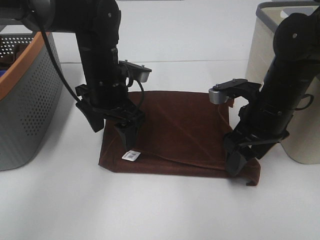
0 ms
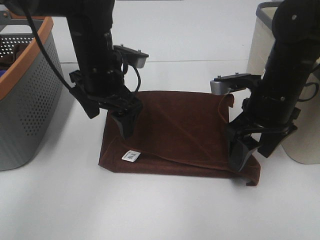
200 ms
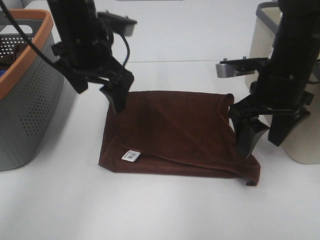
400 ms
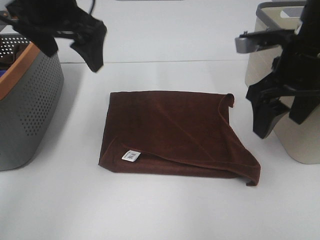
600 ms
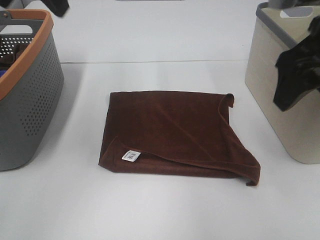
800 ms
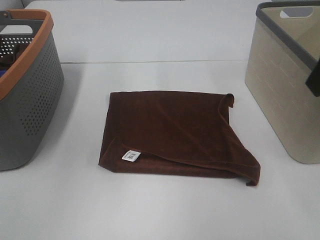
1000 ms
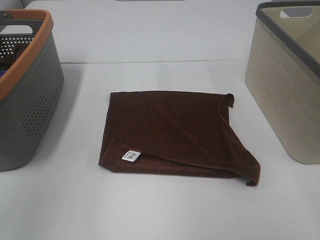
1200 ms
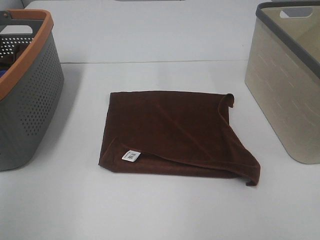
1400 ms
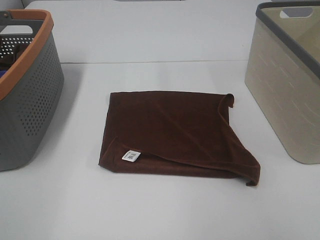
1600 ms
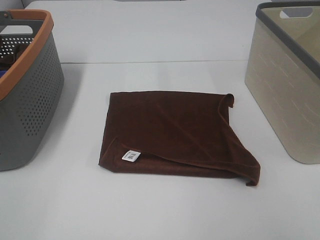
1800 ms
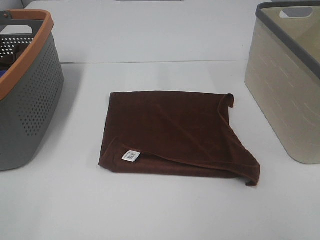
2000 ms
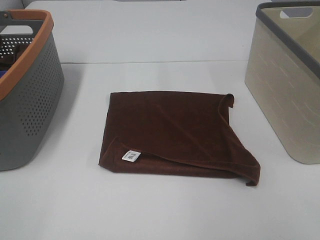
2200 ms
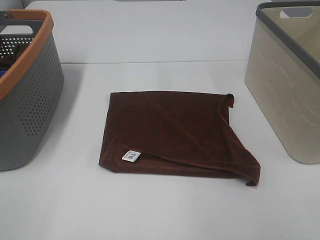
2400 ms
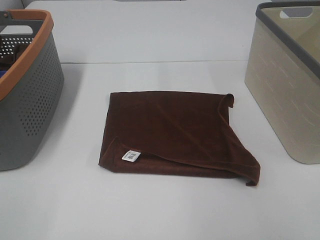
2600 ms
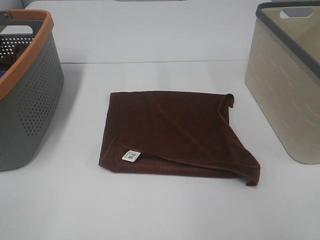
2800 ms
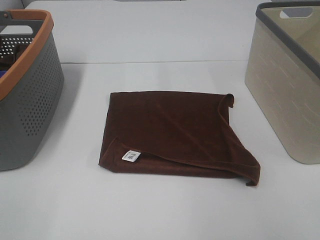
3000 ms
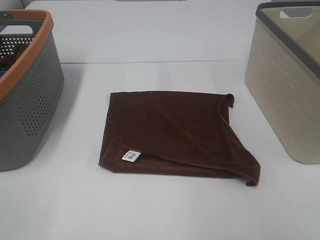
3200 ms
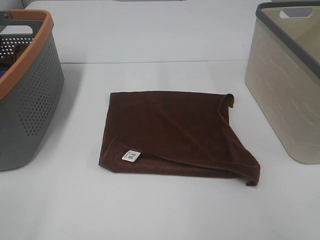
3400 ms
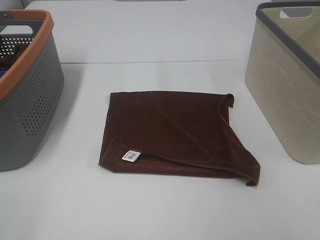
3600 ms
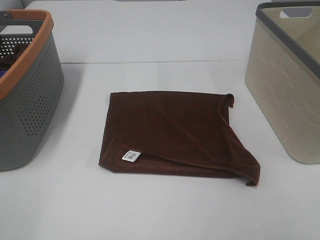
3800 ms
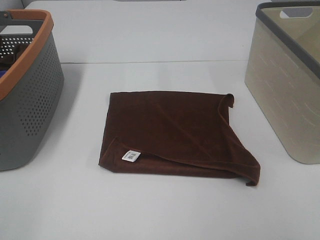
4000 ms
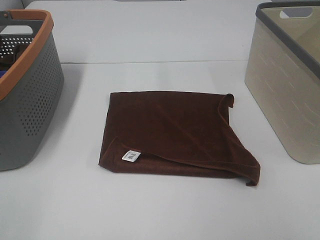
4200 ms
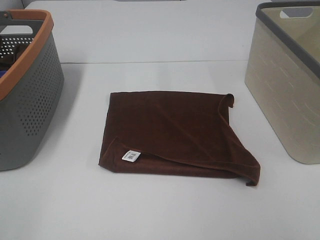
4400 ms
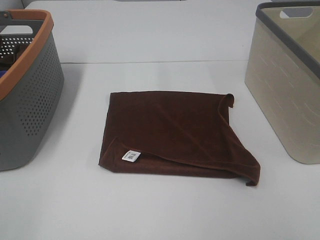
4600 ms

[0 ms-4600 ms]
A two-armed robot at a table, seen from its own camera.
Task of the whole recording: Remove the towel and place it.
0 ms to 1600 ms: The left gripper moves backward, to the left and upward, some 40 cm. Meanwhile the right gripper heads backward and upward, covering approximately 30 cm.

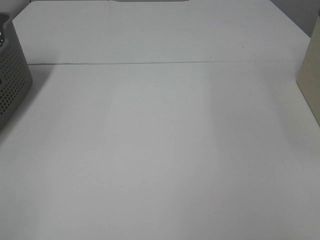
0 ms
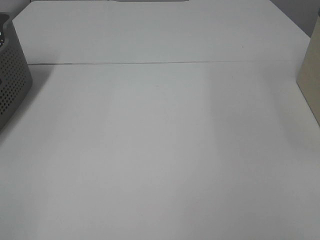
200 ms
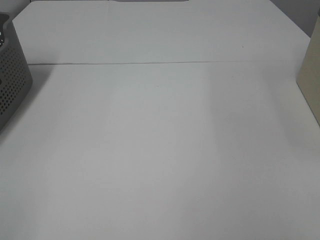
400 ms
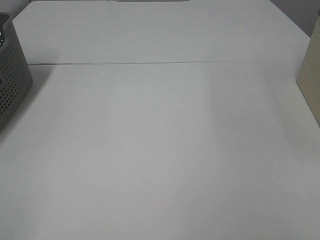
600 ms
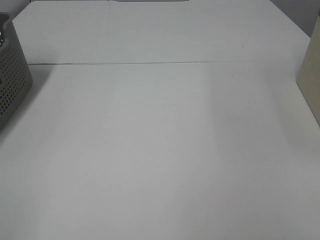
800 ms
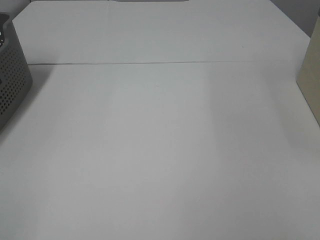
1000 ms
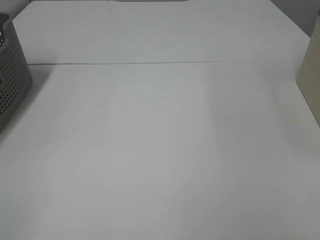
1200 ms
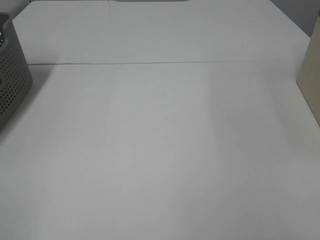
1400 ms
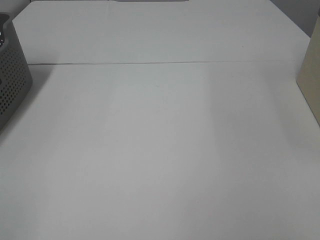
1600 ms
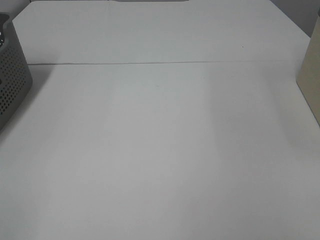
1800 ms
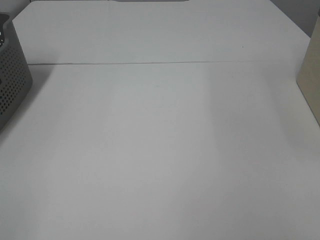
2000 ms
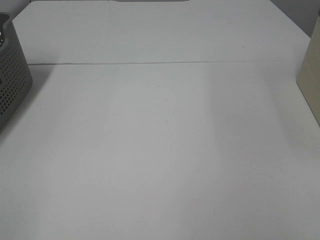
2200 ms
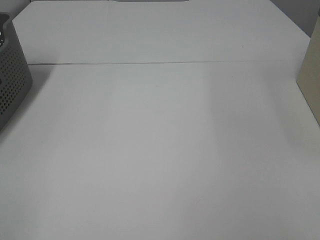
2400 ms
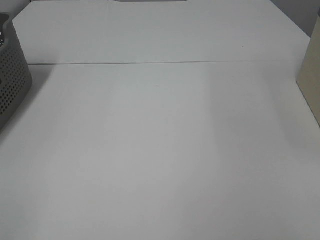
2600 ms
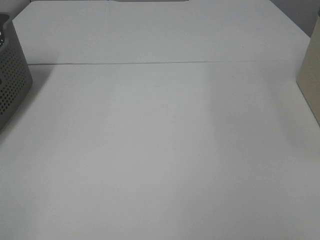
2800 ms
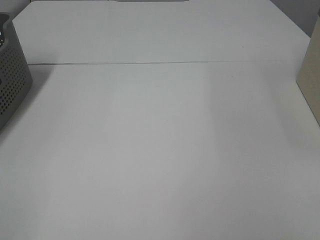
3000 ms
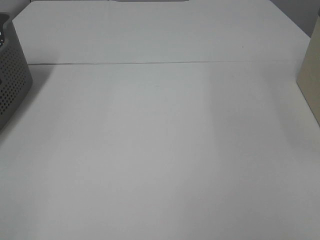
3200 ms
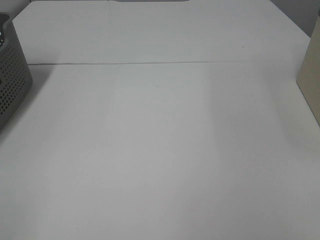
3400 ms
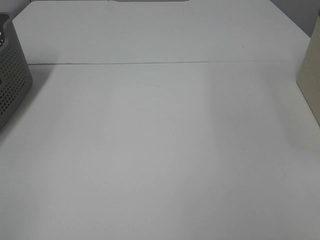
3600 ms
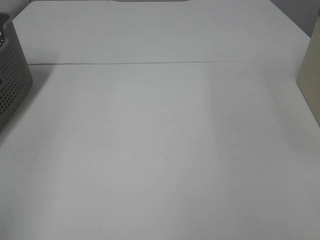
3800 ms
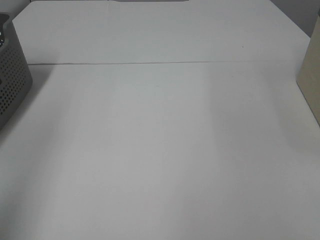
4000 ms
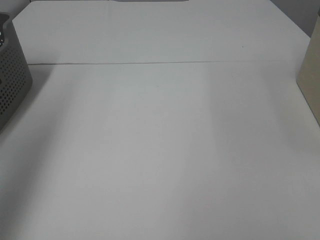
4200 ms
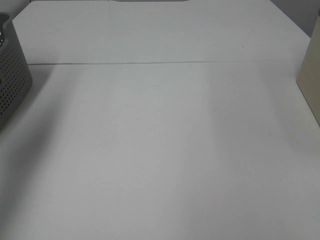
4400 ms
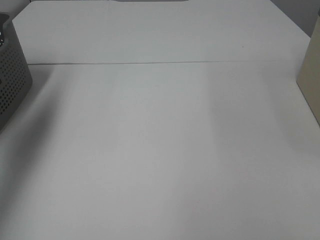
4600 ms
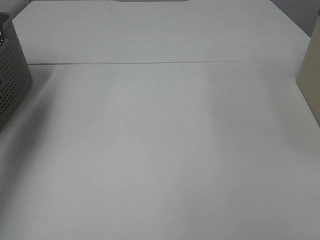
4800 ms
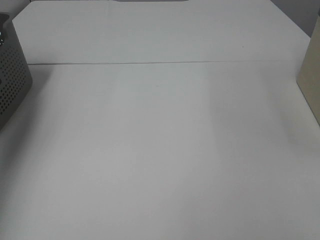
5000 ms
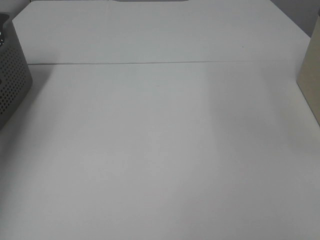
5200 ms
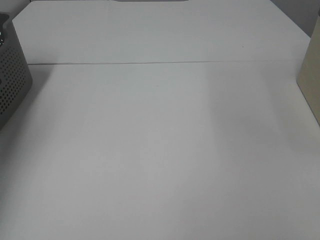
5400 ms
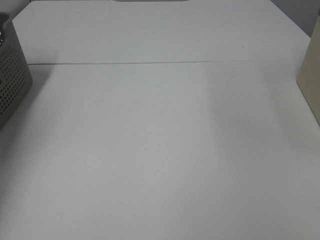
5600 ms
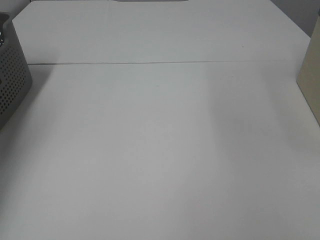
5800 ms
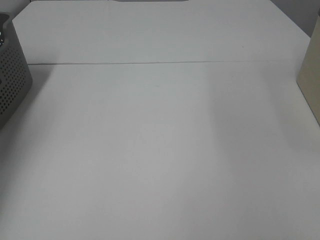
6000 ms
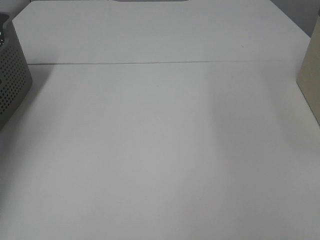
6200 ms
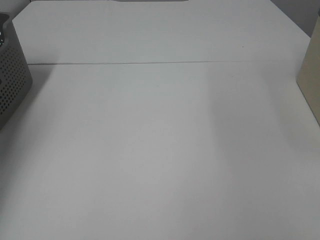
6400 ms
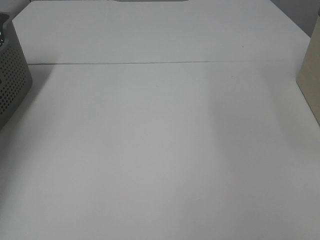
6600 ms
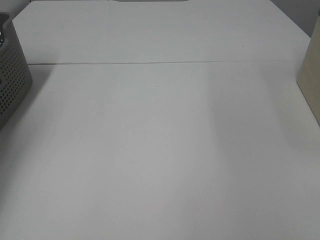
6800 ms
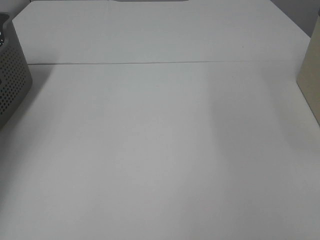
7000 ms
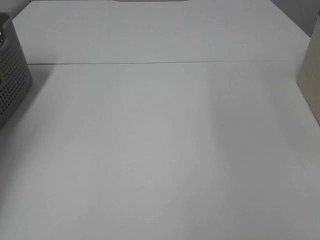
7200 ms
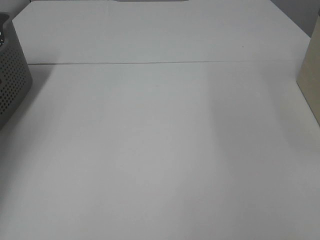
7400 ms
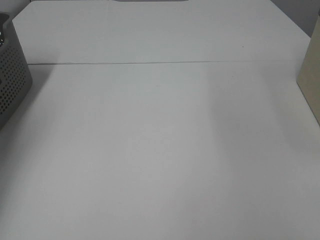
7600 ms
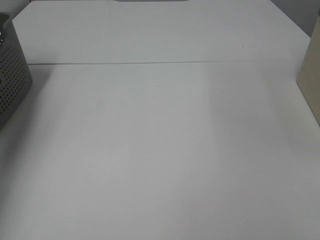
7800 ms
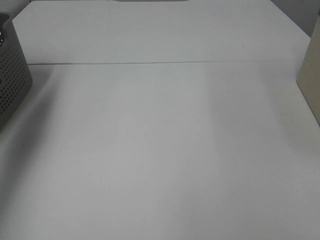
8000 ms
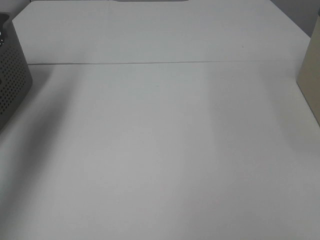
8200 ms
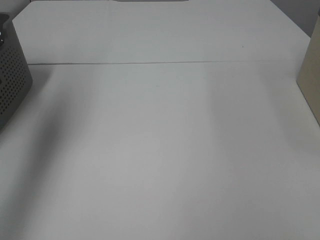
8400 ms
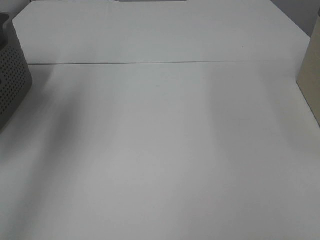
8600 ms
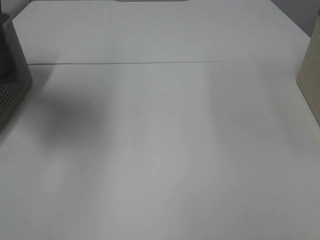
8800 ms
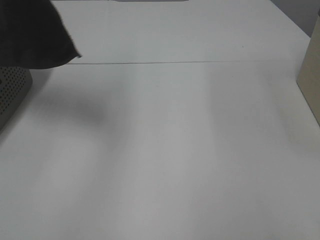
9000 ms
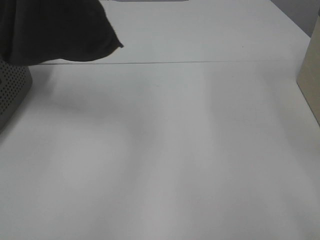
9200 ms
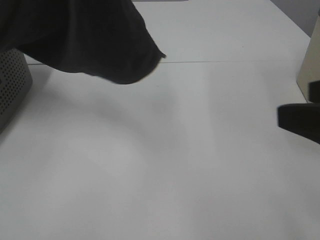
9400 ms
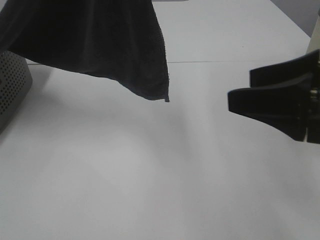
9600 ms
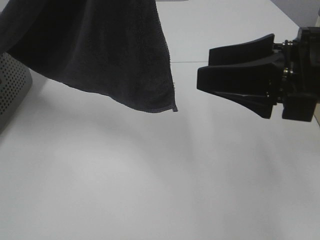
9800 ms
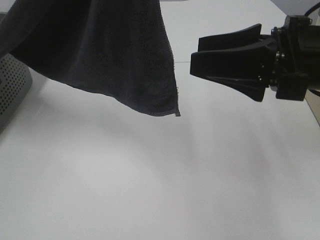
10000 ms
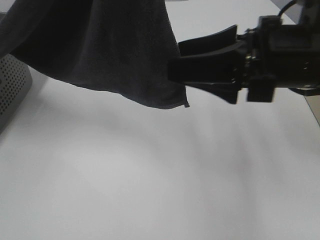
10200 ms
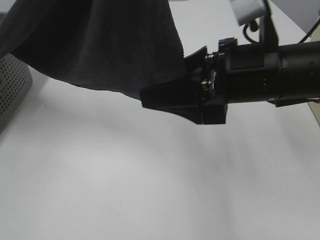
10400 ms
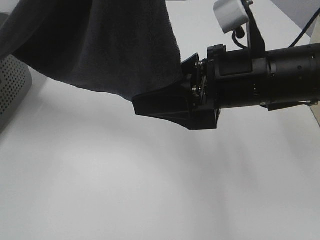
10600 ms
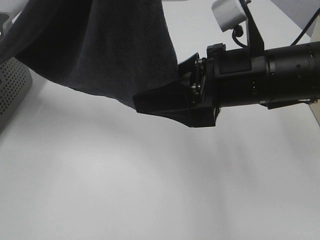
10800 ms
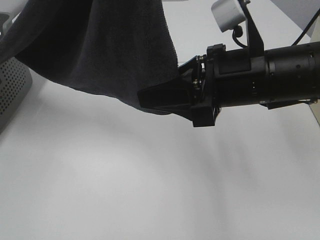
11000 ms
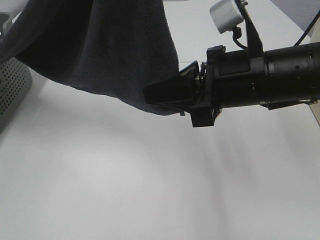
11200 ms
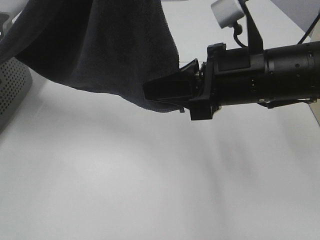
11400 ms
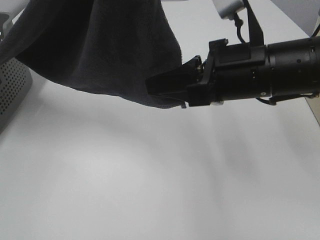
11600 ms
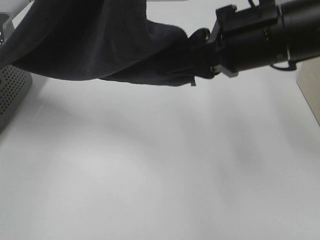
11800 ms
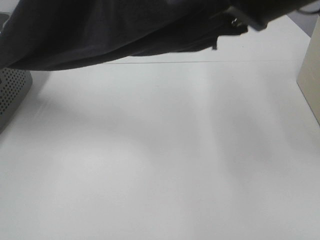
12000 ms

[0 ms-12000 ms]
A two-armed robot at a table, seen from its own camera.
Task of the whole recording: Remove the towel and place it.
0 ms to 3000 ms: Both grippers stay about where they are.
3000 ms to 4400 ms: The left gripper heads forward and upward, covering approximately 30 cm.
4400 ms to 6000 ms: The left gripper shifts roughly 25 cm downward and forward.
7600 ms to 9000 ms: The left gripper moves upward, to the right and backward, roughly 40 cm.
9000 ms to 10400 ms: The left gripper goes approximately 10 cm to the right and backward, while the right gripper travels forward and to the left by roughly 25 cm.
10400 ms to 12000 ms: The right gripper heads upward, covering about 10 cm, and closes up.

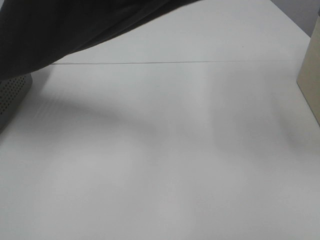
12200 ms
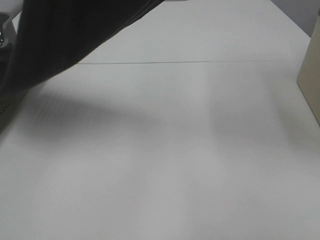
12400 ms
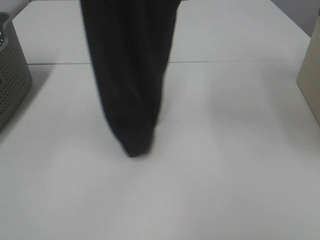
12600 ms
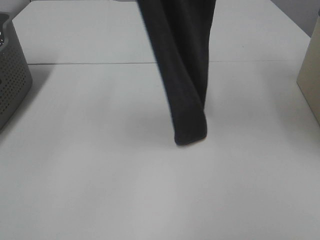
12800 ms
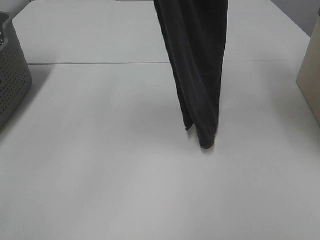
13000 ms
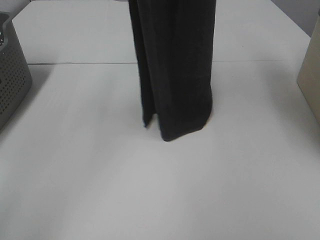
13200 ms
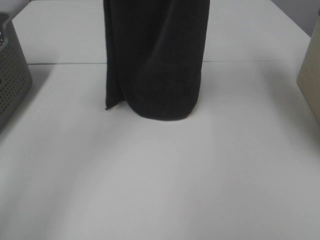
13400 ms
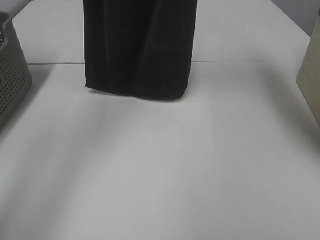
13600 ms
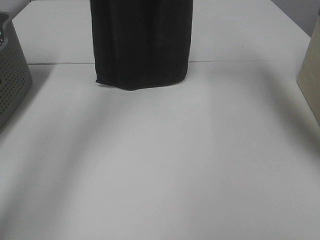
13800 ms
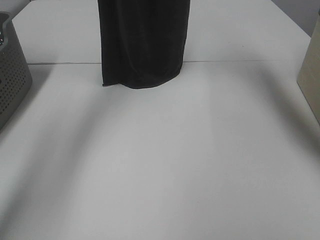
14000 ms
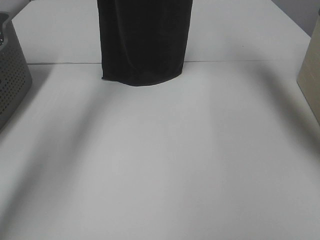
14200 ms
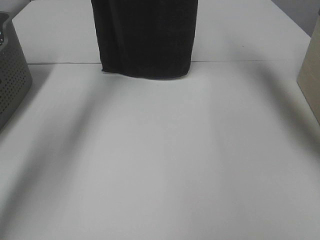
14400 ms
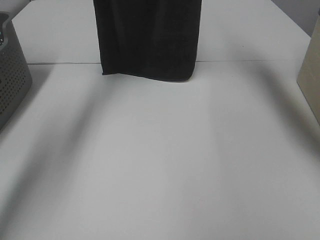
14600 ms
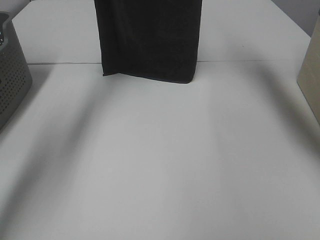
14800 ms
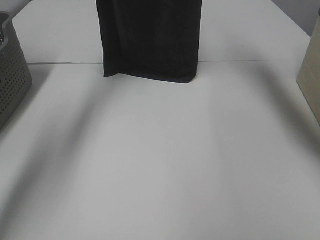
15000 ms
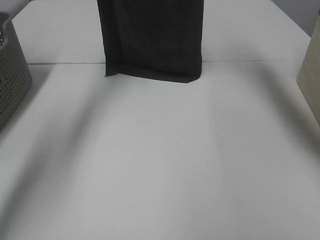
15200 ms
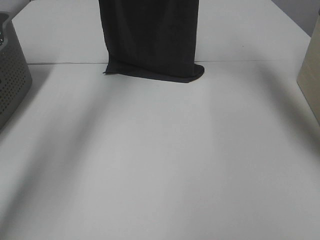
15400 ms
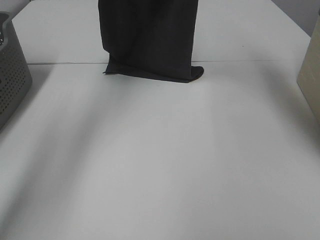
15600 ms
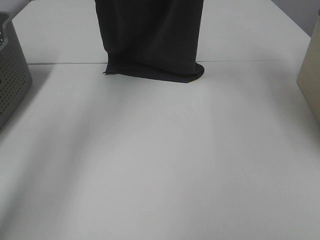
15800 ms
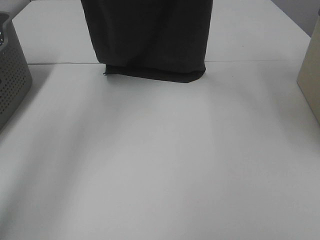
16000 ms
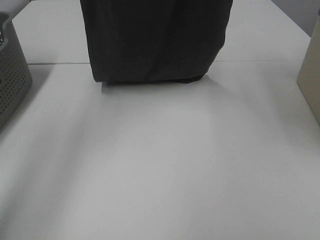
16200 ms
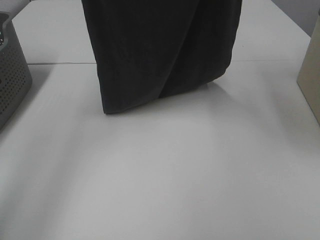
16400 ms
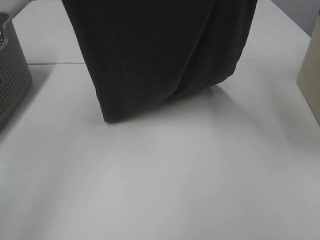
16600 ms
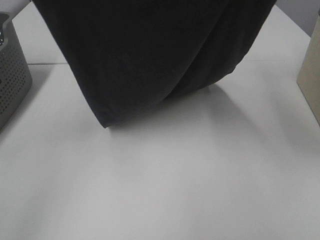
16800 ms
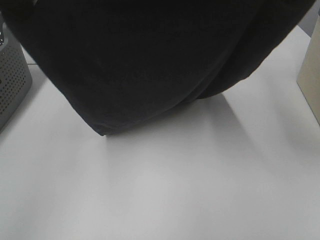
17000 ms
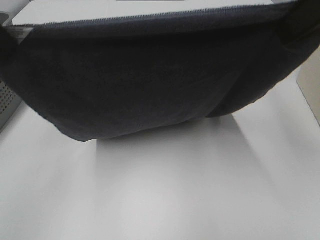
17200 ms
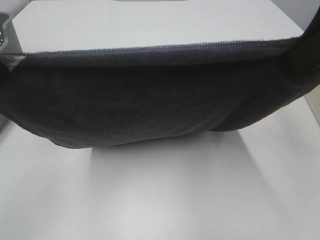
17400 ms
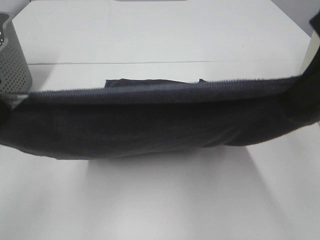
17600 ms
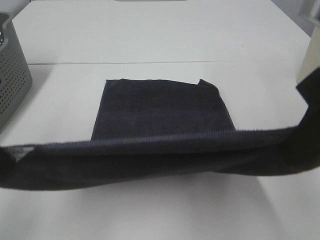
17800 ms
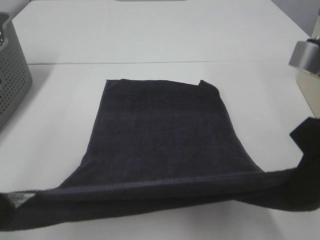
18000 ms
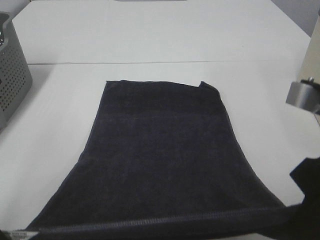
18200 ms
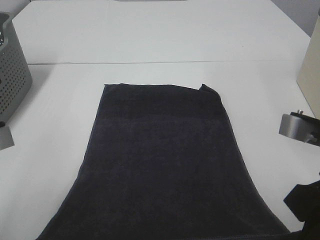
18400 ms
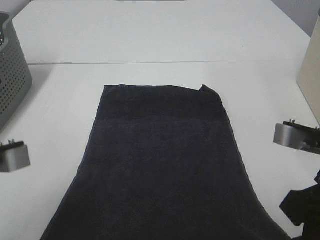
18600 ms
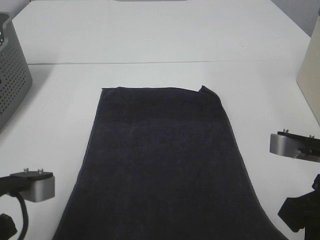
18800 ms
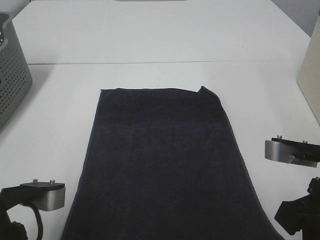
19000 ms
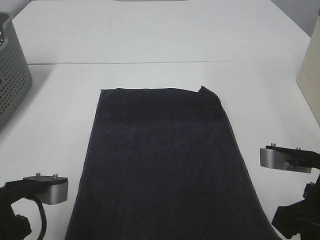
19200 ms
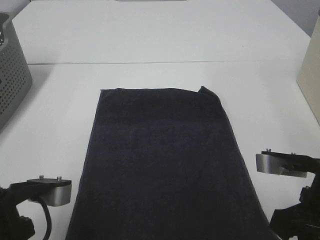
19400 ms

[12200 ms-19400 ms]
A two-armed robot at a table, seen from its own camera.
Task of the whole recording: Remove the towel and place it.
Step, 12400 ms to 16600 ms: Left hand: spread the grey towel flat on the table.
Step, 12400 ms to 16600 ms: Right hand: spread the grey towel flat on the table.
12200 ms to 13600 ms: The left gripper heads forward, covering roughly 20 cm. Meanwhile the right gripper goes about 15 cm forward and upward.
13600 ms to 15000 ms: The grippers both shift forward by roughly 10 cm.
15000 ms to 16600 ms: The two grippers go approximately 20 cm backward.
16600 ms to 18000 ms: The grippers both shift downward and backward by about 25 cm.
18000 ms to 19400 ms: Both grippers move downward, approximately 10 cm.
